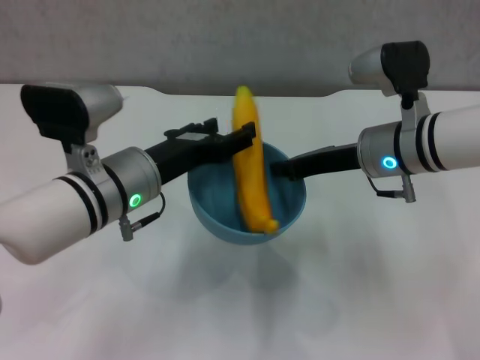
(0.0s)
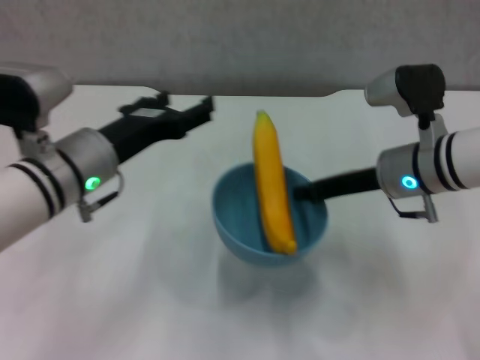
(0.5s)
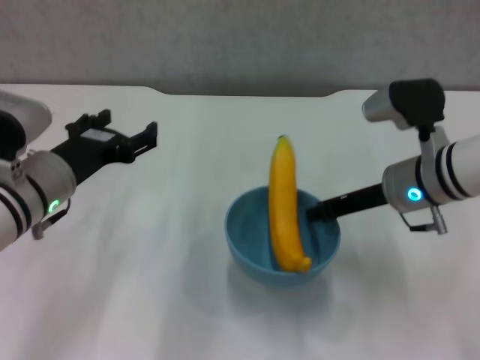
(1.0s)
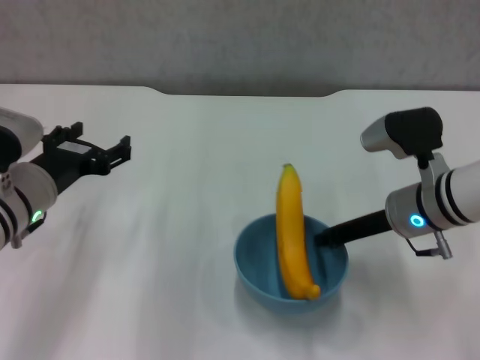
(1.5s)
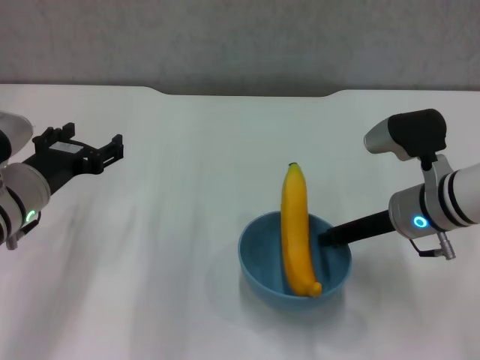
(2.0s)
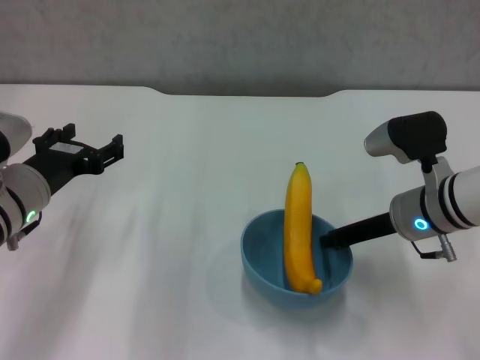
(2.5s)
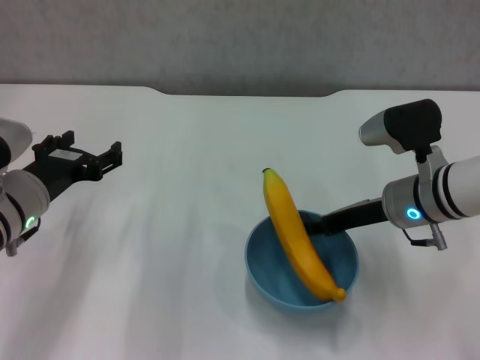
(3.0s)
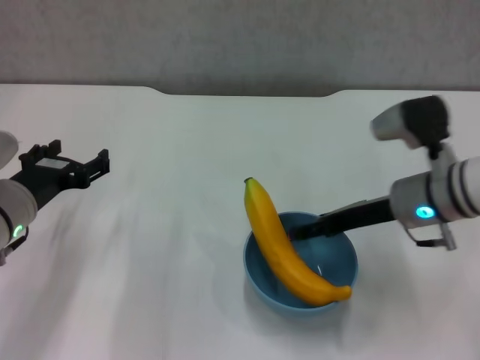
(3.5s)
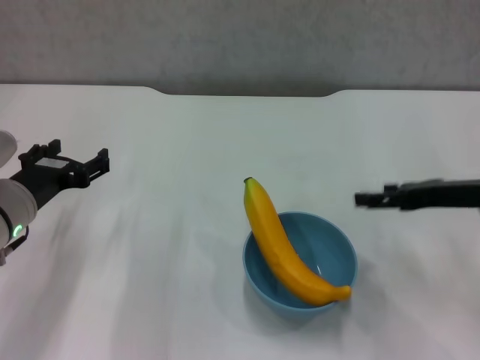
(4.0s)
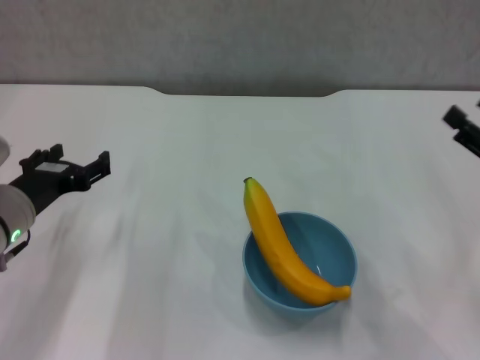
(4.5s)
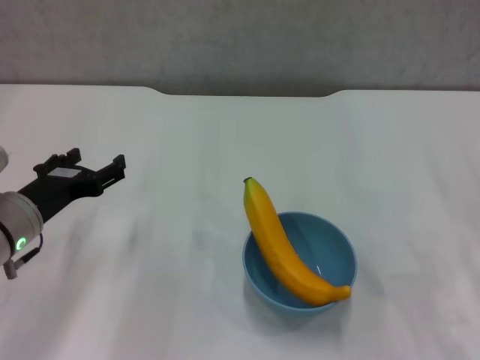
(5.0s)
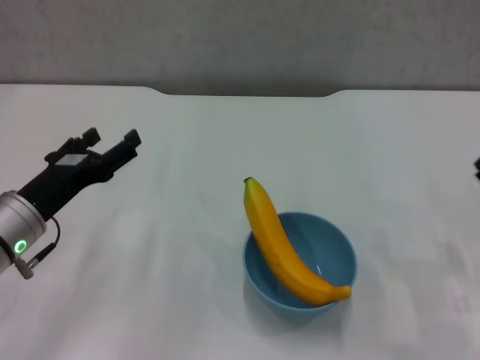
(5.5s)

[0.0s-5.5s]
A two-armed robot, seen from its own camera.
Step, 0.5s to 3.5s: Place the bowl on the table with right gripper.
0.0s to 2.0s: The right gripper moves about 5 cm, while the left gripper moves to the left, approximately 10 cm, and opens its fingers.
2.0s to 3.5s: The right gripper opens its fingers.
3.5s to 5.5s: The right gripper moves to the right, backward and downward, roughly 20 cm.

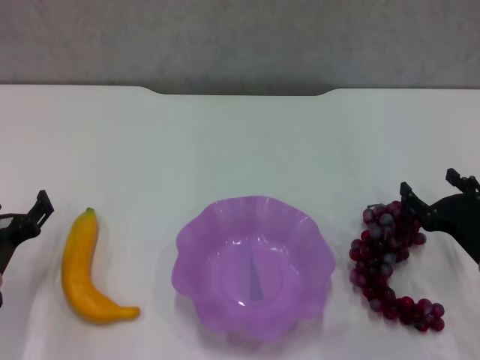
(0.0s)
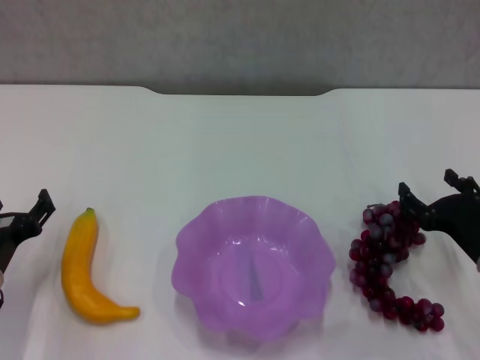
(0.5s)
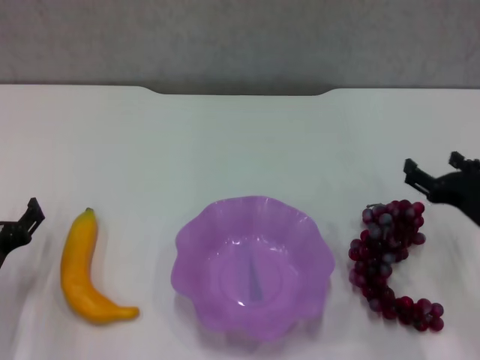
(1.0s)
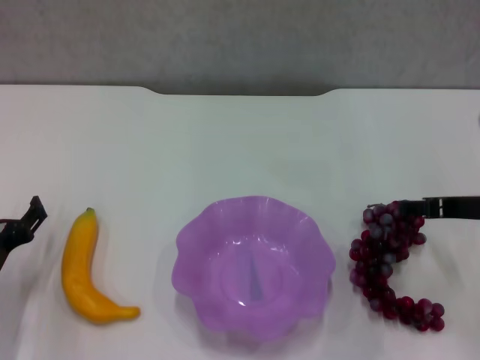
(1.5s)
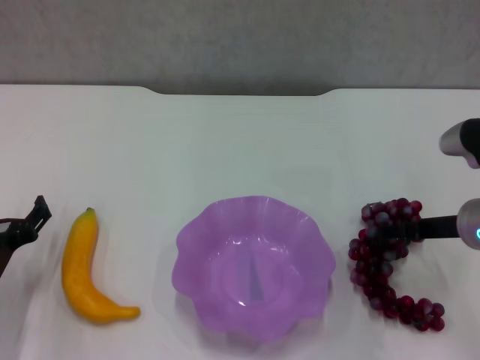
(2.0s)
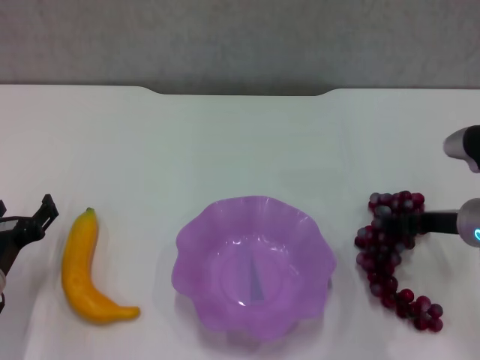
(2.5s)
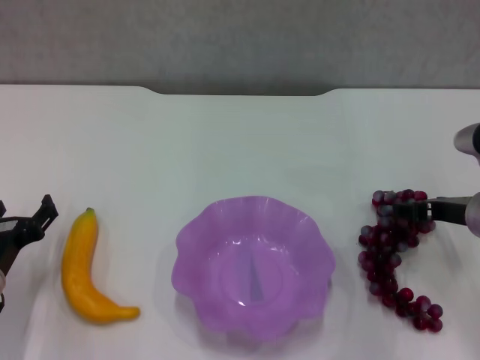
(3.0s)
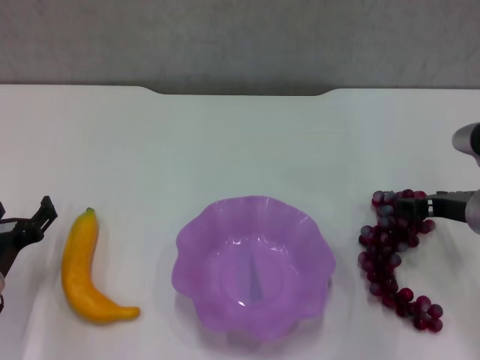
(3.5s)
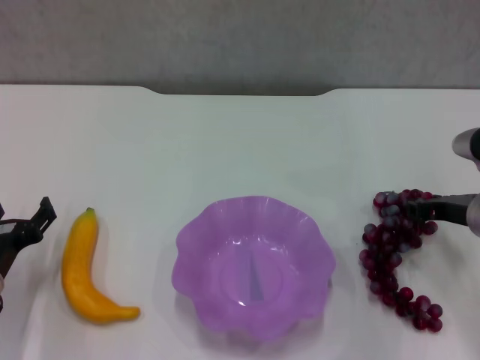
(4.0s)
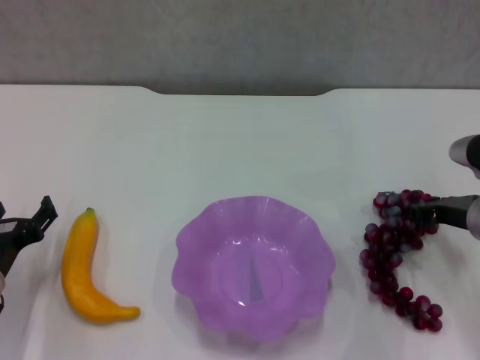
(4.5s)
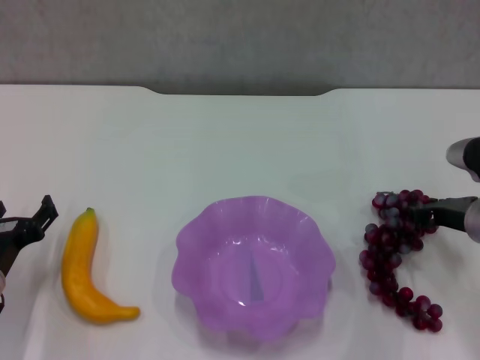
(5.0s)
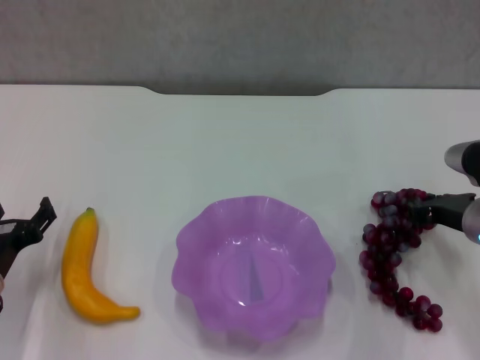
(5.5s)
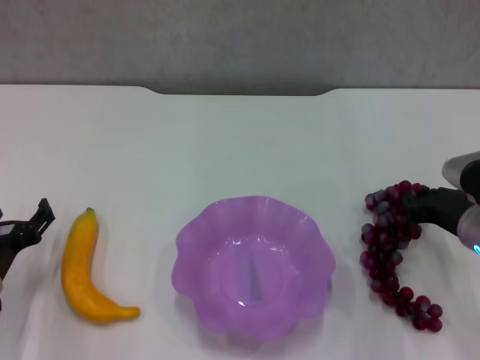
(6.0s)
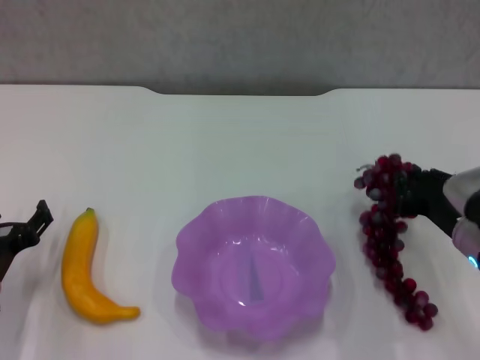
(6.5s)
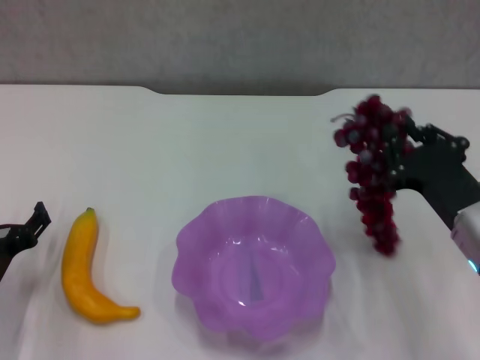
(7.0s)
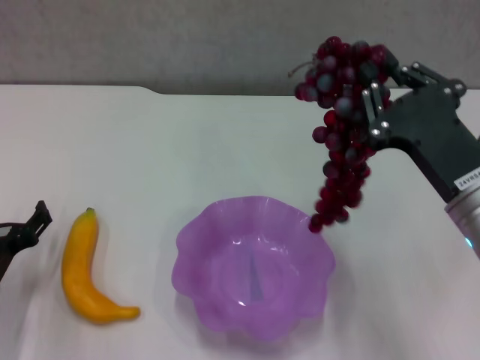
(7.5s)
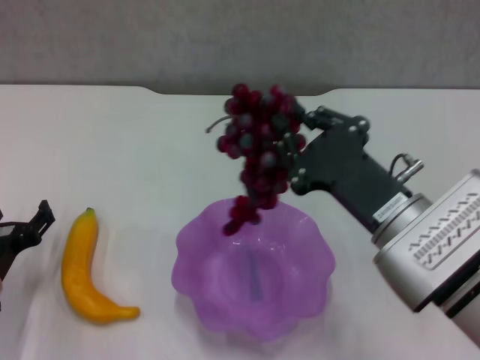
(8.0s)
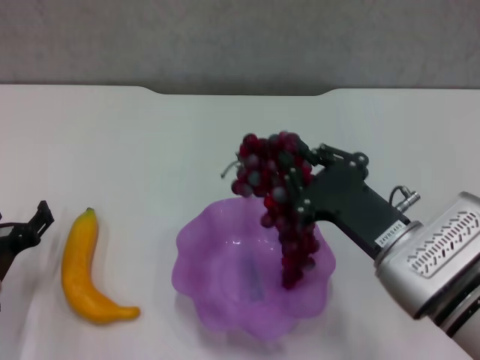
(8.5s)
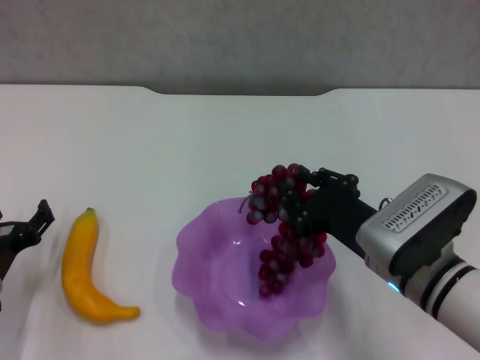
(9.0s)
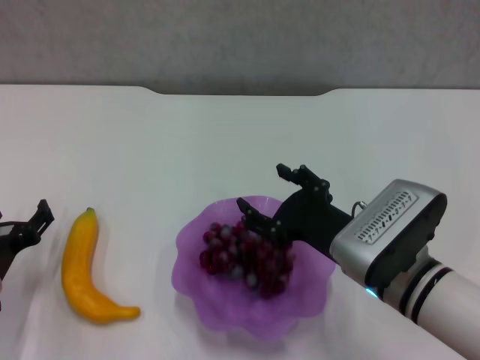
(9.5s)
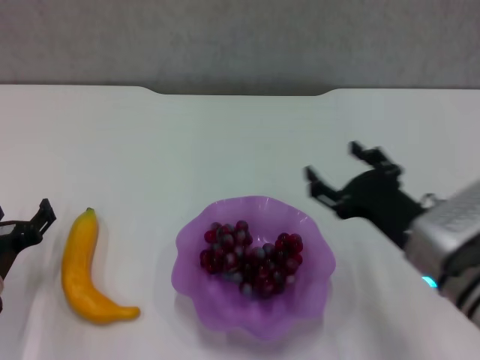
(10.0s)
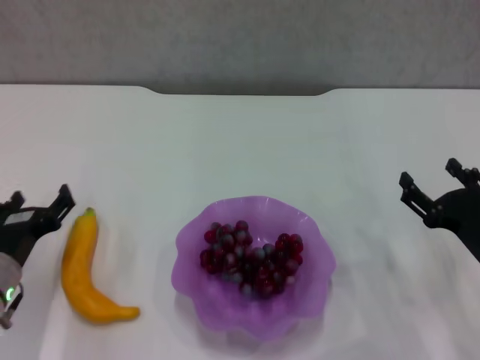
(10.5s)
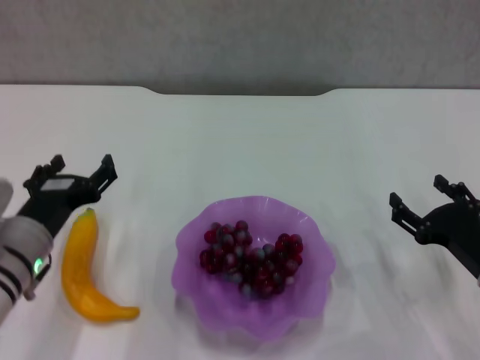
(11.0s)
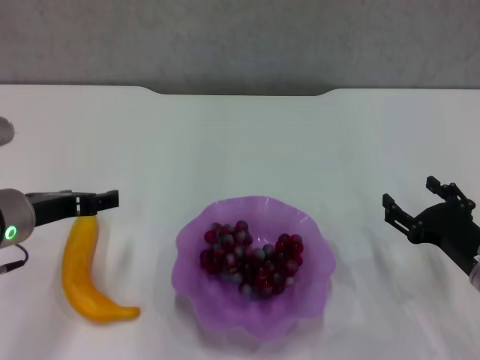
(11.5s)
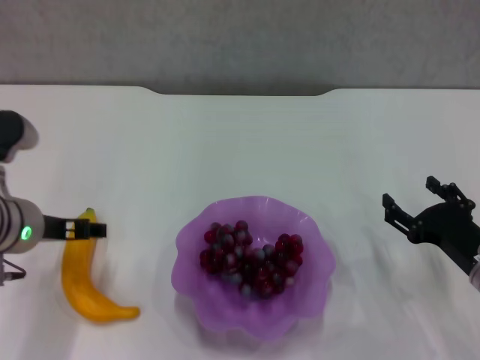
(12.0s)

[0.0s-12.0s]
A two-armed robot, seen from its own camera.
Step, 0.0s to 4.5s: Grasp the grape with right gripper.
Step, 5.0s to 9.5s: Place the grape in the purple plate with right gripper.
0.0s to 2.0s: The right gripper is displaced upward and forward by some 10 cm.
2.0s to 4.0s: The right gripper closes its fingers.
4.0s to 6.0s: The right gripper closes its fingers.
6.0s to 8.0s: The right gripper heads to the left, backward and upward, covering about 15 cm.
8.0s to 10.0s: The right gripper moves downward, about 5 cm, and opens.
10.0s to 12.0s: The right gripper moves to the right and downward, some 10 cm. The left gripper heads upward and to the right, covering approximately 15 cm.

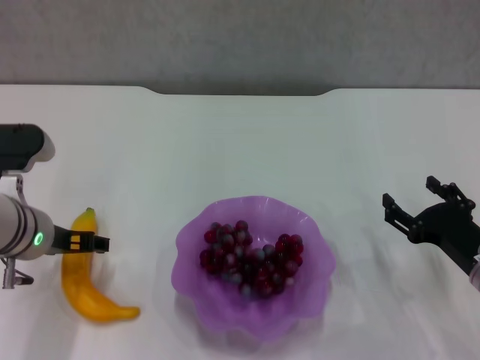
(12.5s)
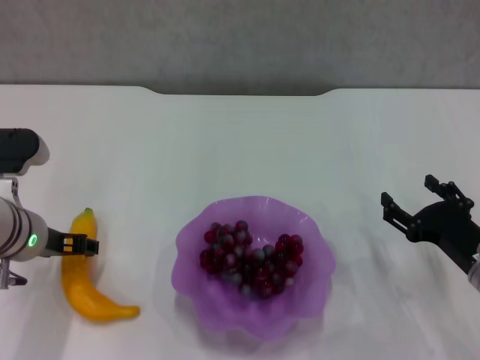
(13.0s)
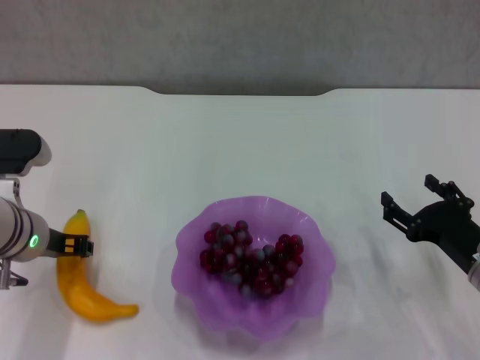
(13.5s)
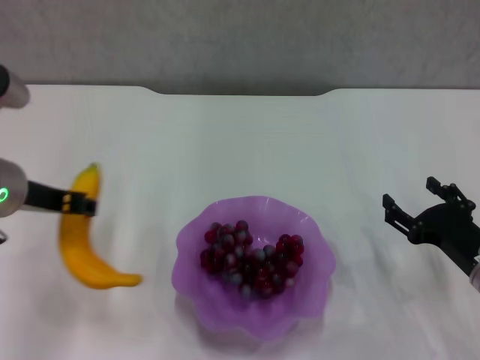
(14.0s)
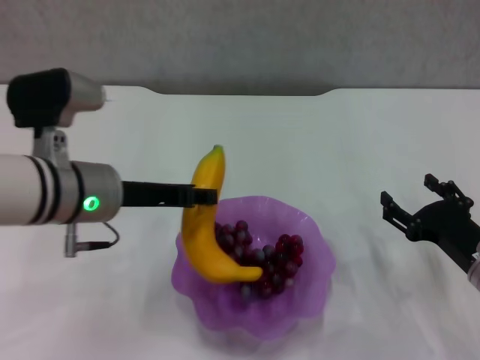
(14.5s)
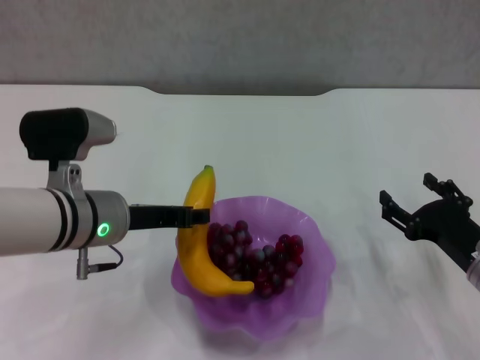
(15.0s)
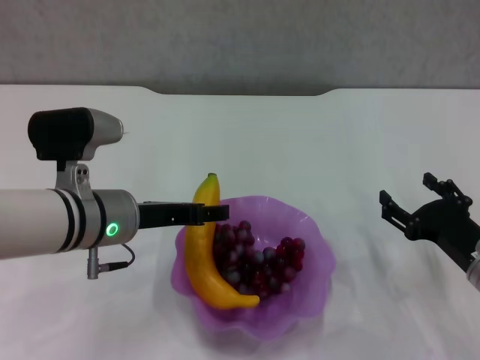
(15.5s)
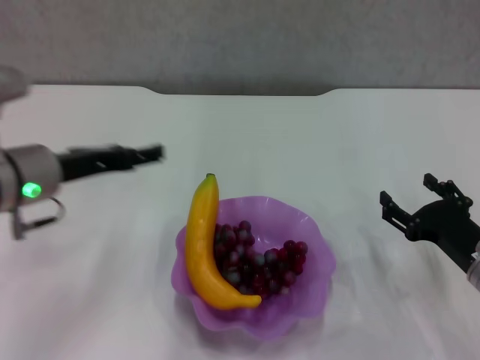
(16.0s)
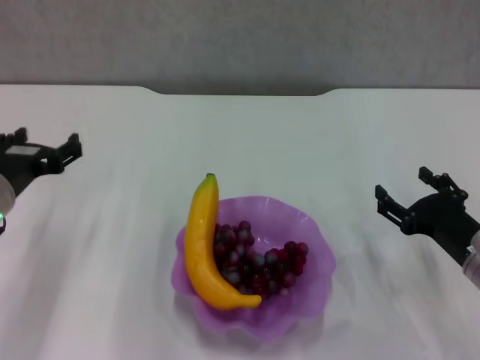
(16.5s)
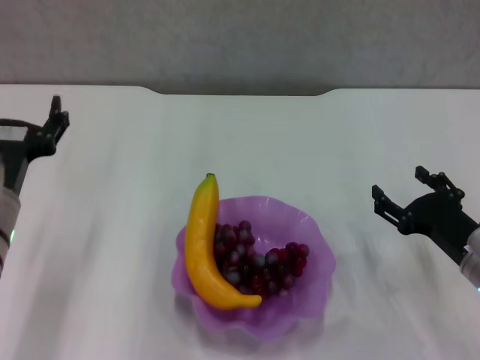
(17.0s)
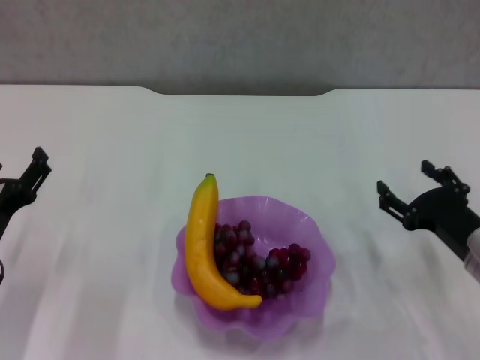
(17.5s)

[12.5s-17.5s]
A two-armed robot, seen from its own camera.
Step, 14.0s to 15.5s: Place the banana in the purple plate with left gripper.
12.5s to 15.0s: The left gripper heads to the right, covering approximately 5 cm, reaches about 5 cm upward, then returns, and closes its fingers.
15.0s to 17.5s: The left gripper goes some 15 cm to the left, downward and backward, and opens.

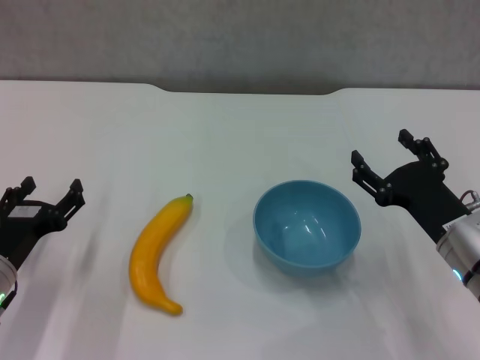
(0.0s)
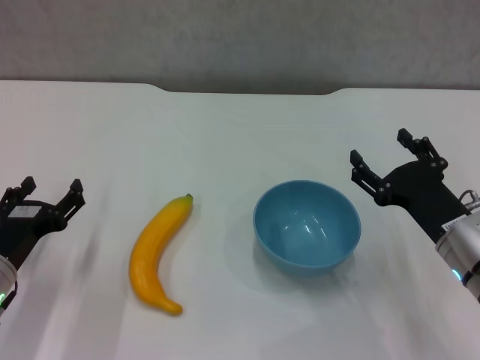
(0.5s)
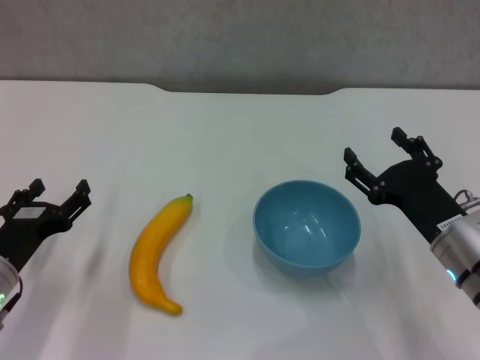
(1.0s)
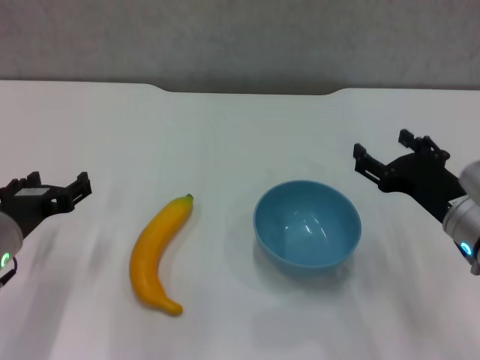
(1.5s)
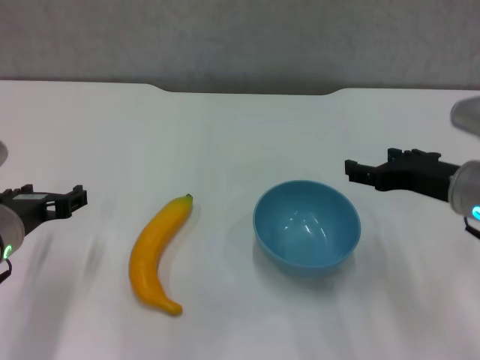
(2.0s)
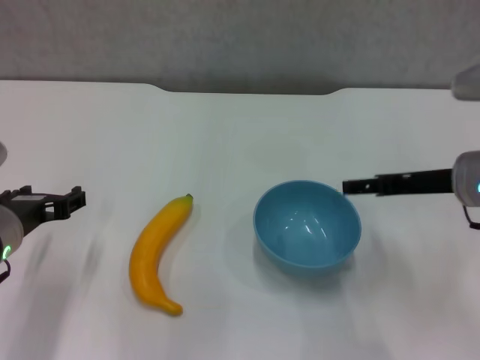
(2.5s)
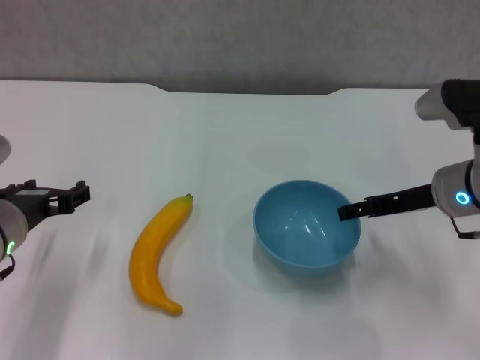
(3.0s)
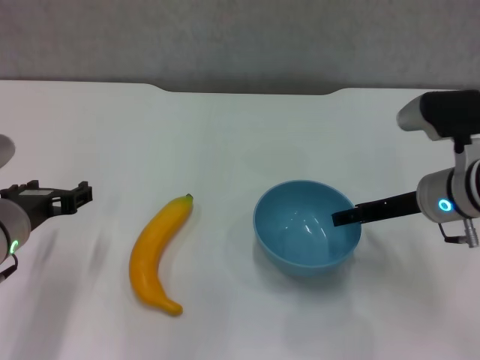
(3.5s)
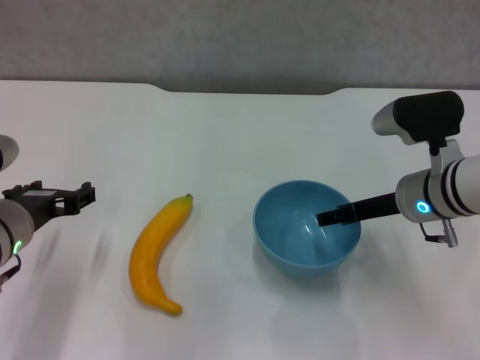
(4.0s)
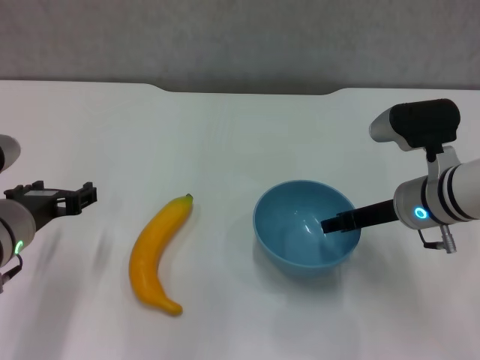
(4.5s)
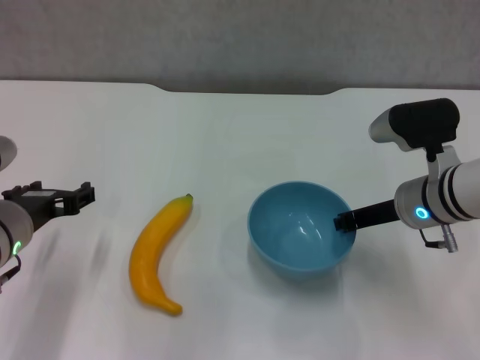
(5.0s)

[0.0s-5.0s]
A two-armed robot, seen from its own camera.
0.0s to 2.5s: The left gripper moves upward, some 10 cm. The right gripper is displaced upward and forward by some 10 cm.
2.5s to 5.0s: The right gripper is displaced downward by roughly 5 cm, and closes up.
